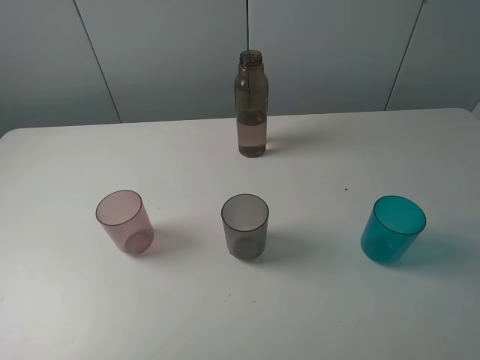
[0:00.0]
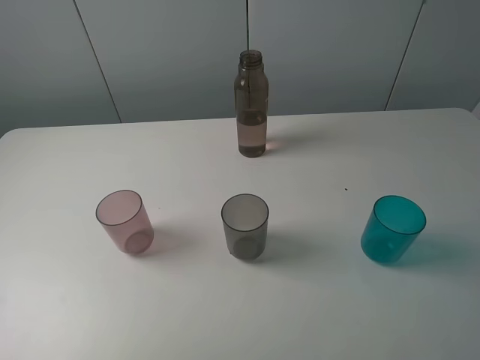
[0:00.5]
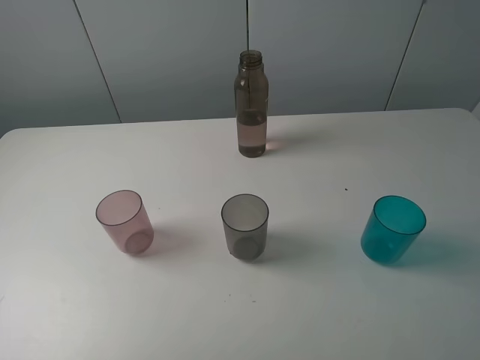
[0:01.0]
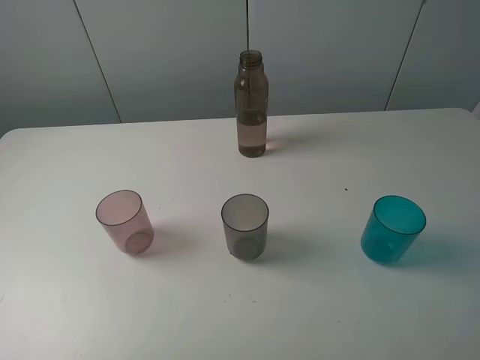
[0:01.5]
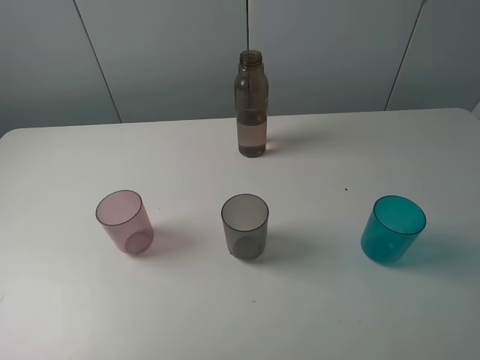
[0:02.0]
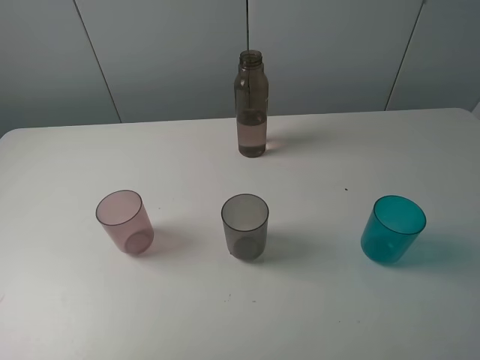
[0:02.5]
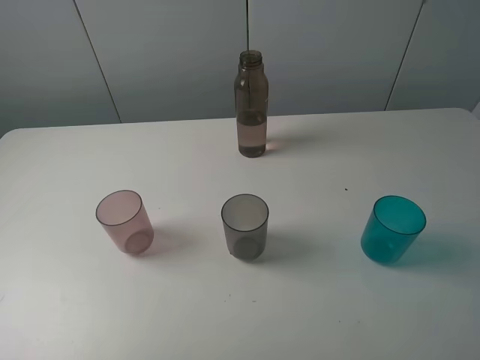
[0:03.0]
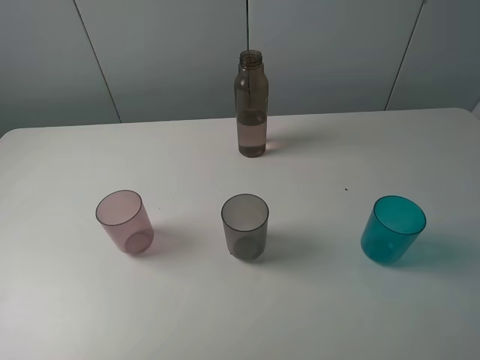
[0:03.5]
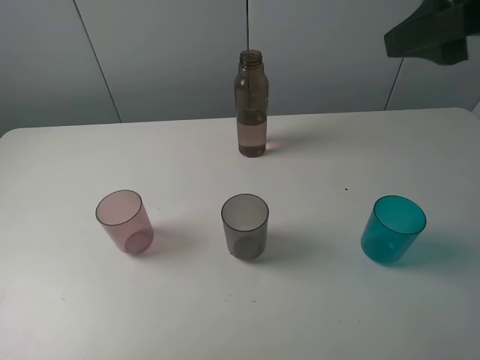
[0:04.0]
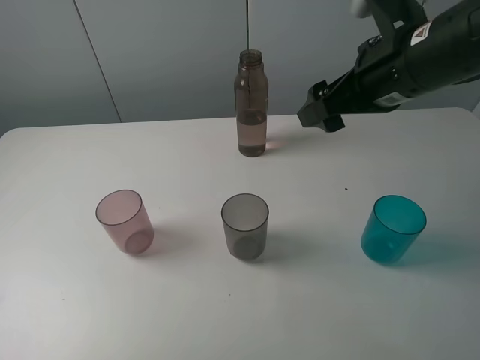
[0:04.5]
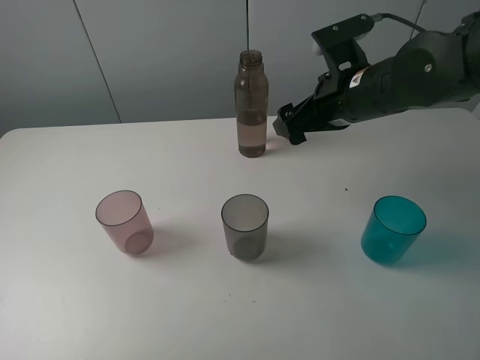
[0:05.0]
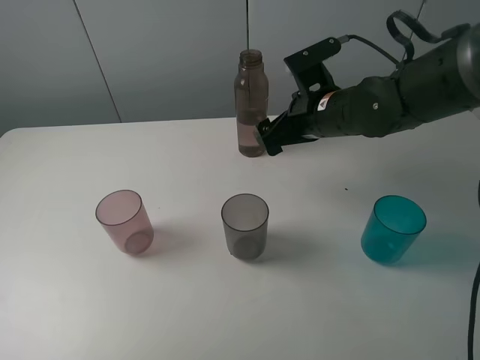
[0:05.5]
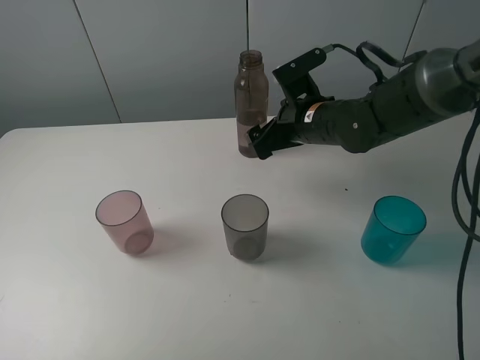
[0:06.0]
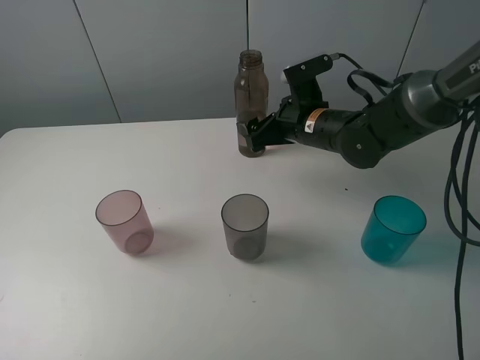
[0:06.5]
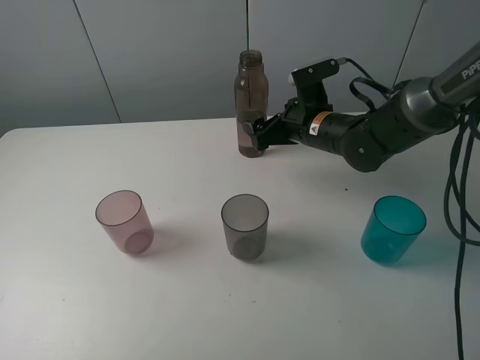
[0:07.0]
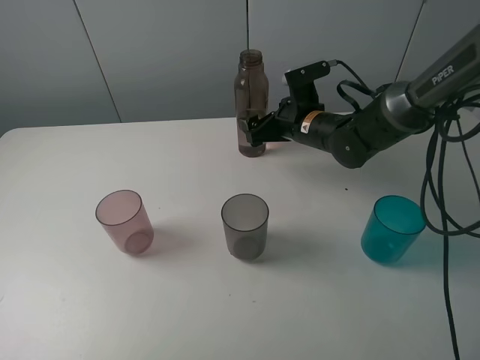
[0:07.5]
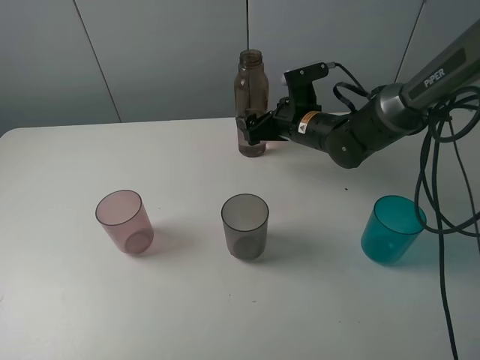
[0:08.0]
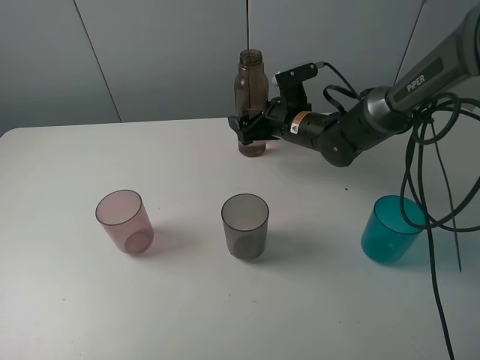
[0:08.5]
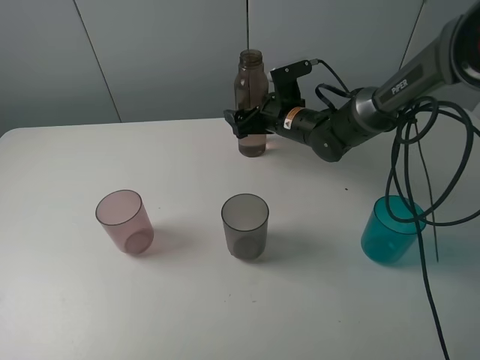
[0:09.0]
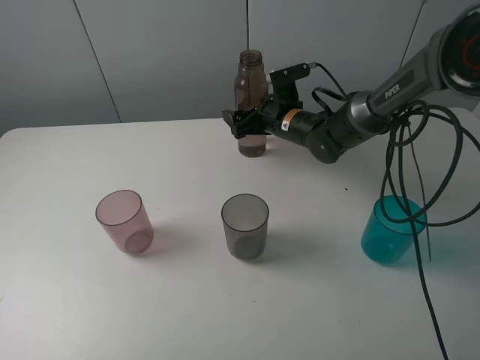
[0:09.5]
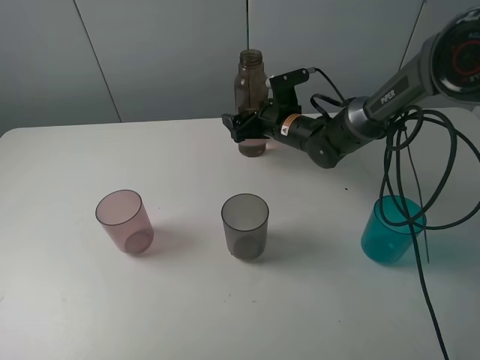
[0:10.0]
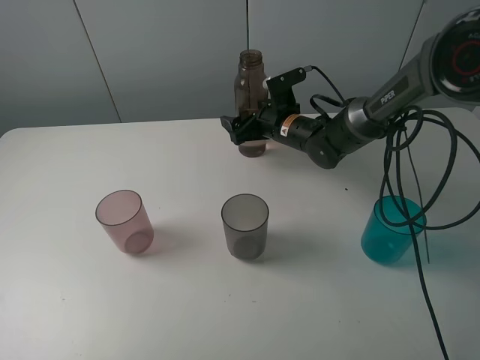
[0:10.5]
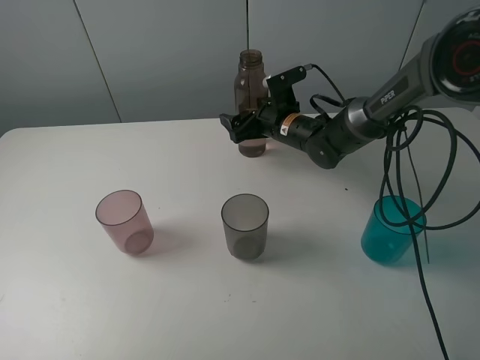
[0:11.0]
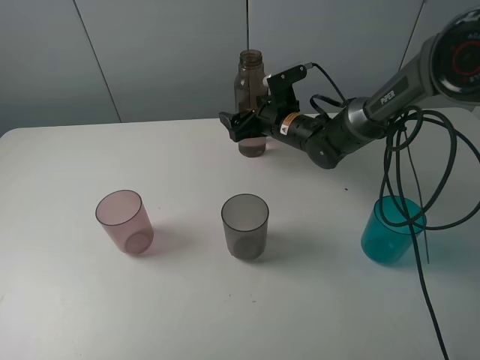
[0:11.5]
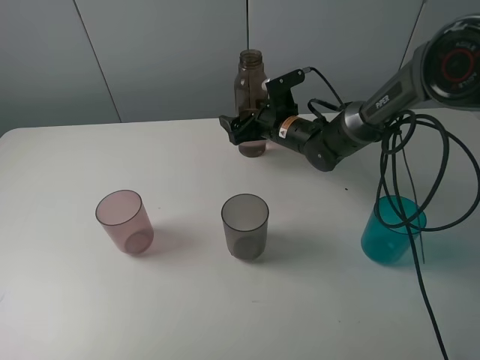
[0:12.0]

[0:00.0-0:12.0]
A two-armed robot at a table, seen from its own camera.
Task of the whole recording: pick up the bottle filled with water and pour water into the middle cup of the three cups.
0:00.0 to 0:02.0: Both grippers stay put.
0:02.0 to 0:04.0: The right gripper shifts some 20 cm forward.
0:04.0 to 0:06.0: The right gripper shifts approximately 30 cm downward, forward and to the left.
0:06.0 to 0:08.0: The right gripper ends up approximately 5 cm from where it was.
0:08.0 to 0:10.0: The right gripper changes place by about 5 cm.
0:10.0 to 0:12.0: Both grippers stay about where they are.

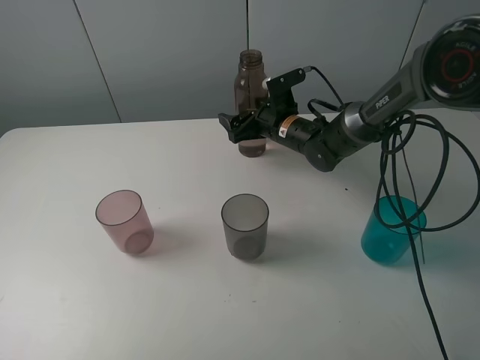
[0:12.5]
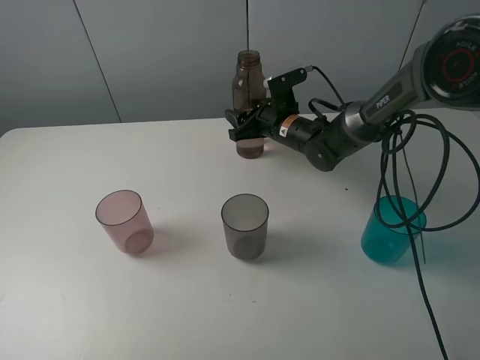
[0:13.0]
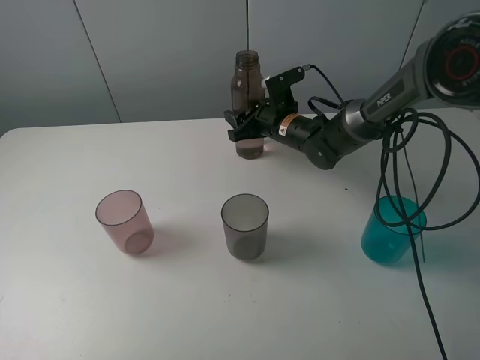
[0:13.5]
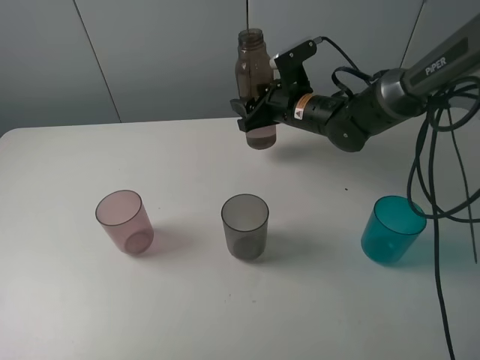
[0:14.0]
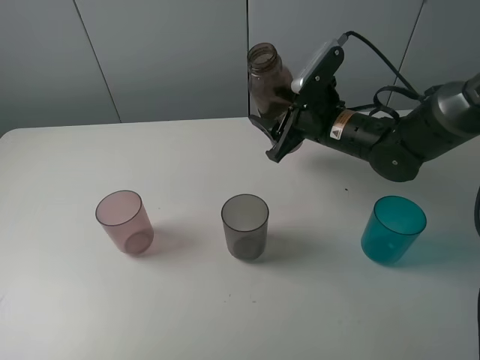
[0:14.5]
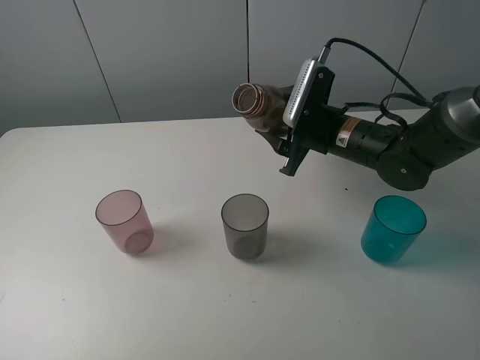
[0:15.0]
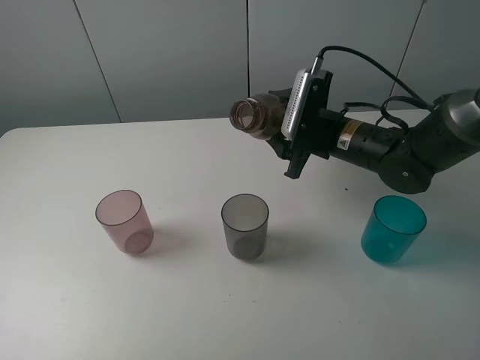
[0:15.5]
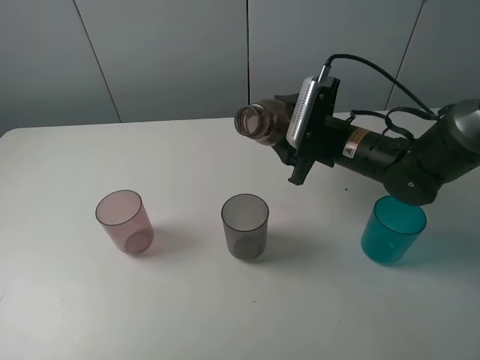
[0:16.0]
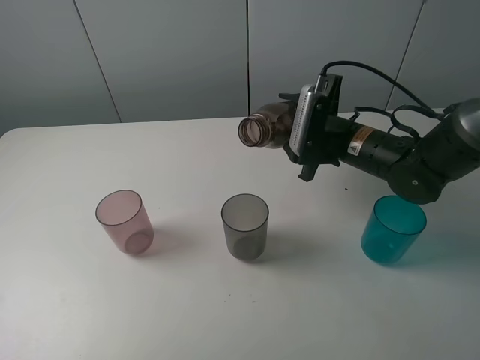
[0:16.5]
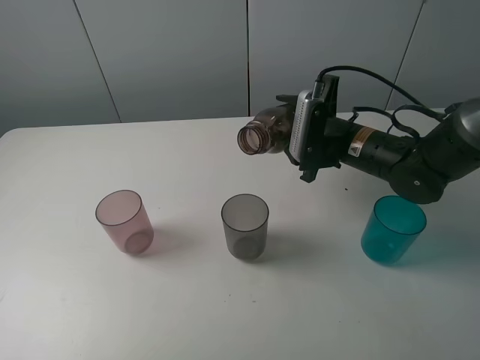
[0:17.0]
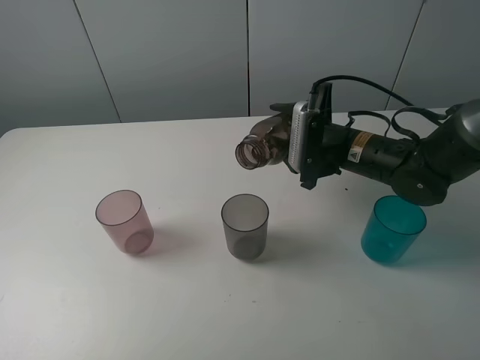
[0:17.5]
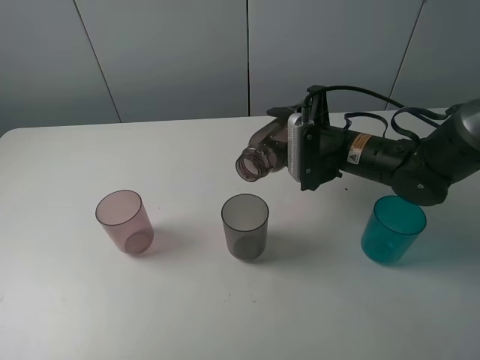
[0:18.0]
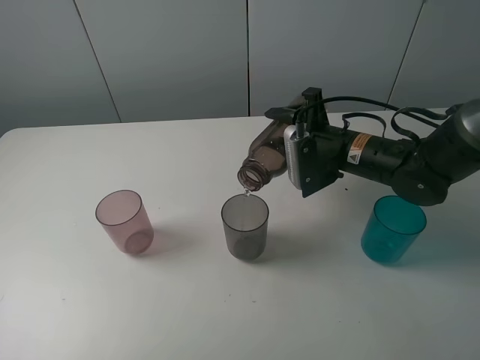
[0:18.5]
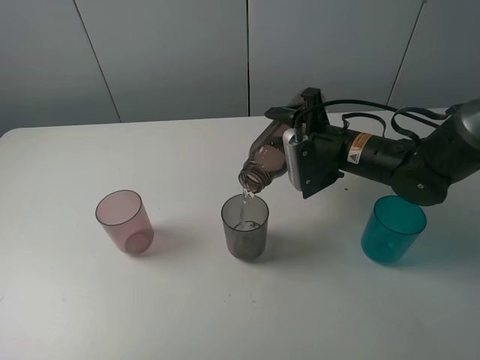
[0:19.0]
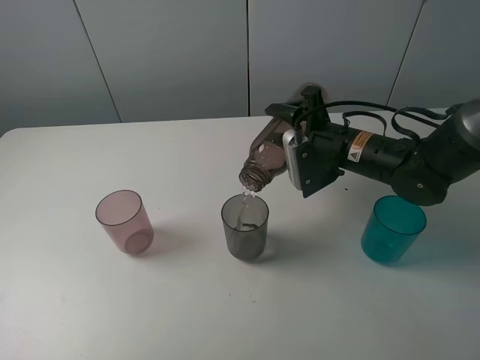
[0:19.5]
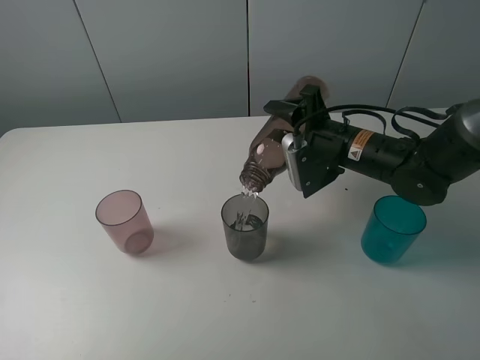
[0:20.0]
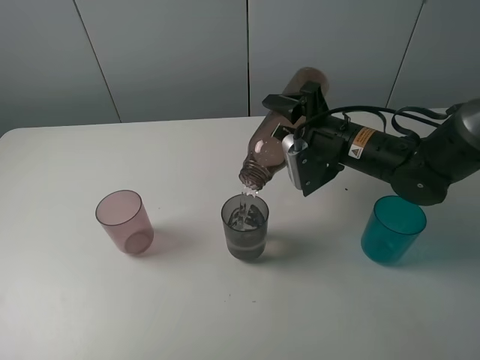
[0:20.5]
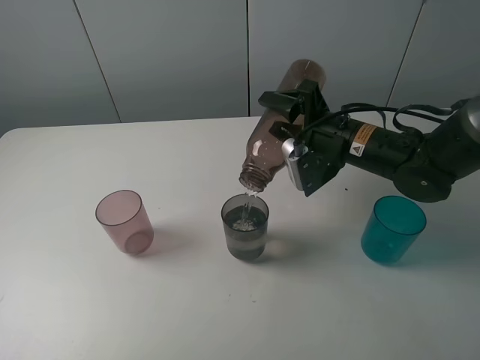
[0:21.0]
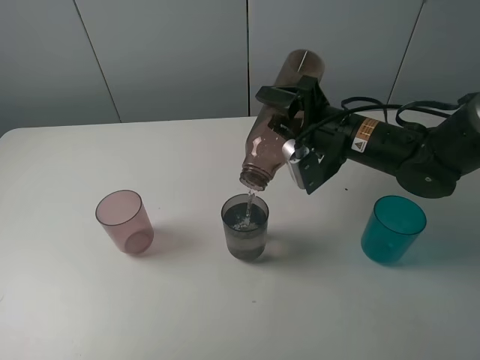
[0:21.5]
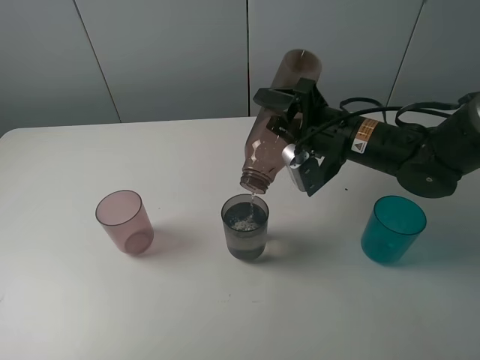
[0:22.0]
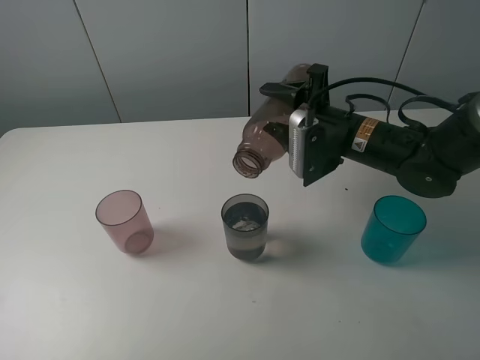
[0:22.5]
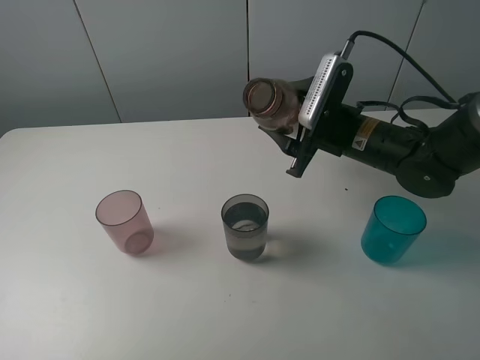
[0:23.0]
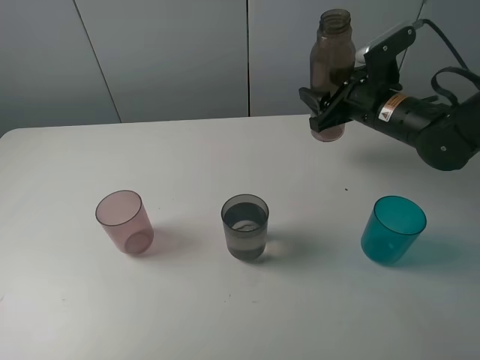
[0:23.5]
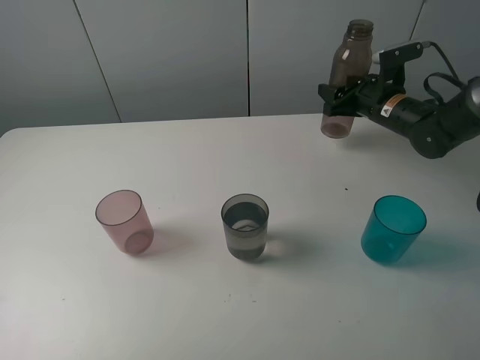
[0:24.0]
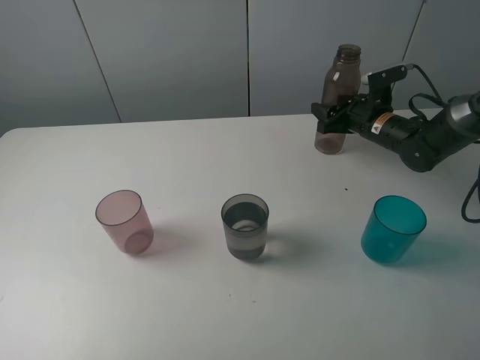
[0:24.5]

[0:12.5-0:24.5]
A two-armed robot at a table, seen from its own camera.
Task of the whole recording: pick up the bottle filled with water and pour water into the middle cup of the three cups.
Step, 0:13.5 to 0:23.5: Pour water from brown bottle to grey cup with the right gripper.
0:12.5 to 0:14.5: The right gripper is displaced backward, upward and to the right by some 10 cm, and closes.
0:18.5 to 0:20.5: The grippers make only small movements.
0:20.5 to 0:22.5: The grippers move only a little.
0:22.5 to 0:24.5: The right gripper moves forward, to the right and downward, about 15 cm.

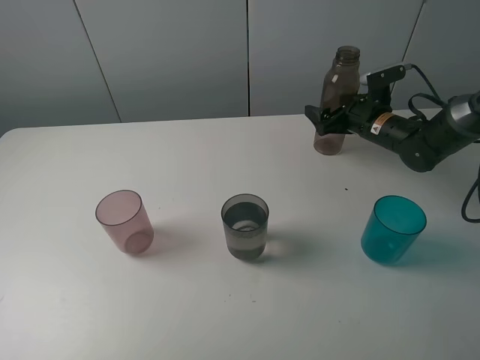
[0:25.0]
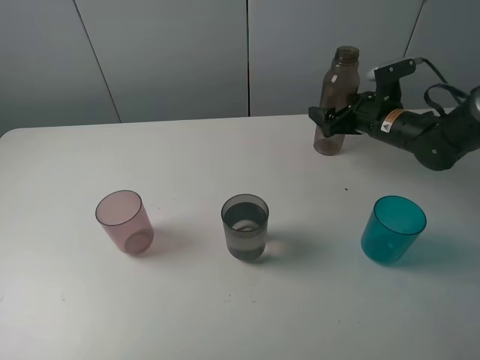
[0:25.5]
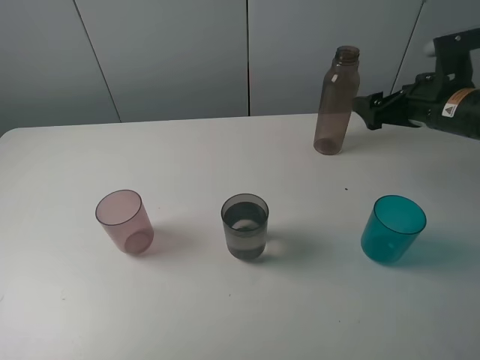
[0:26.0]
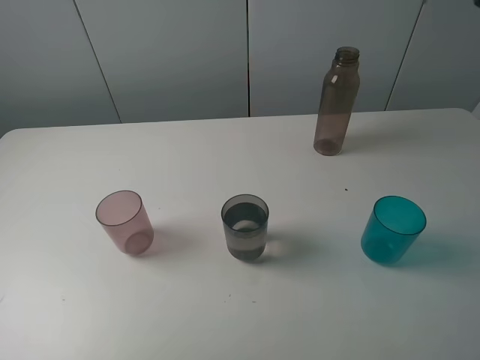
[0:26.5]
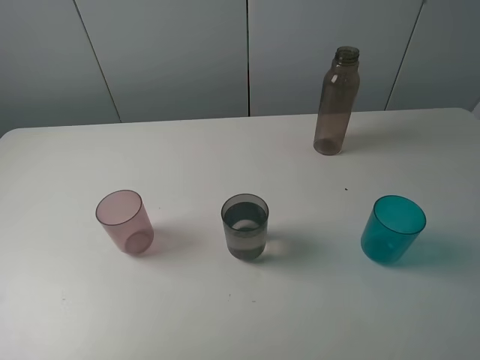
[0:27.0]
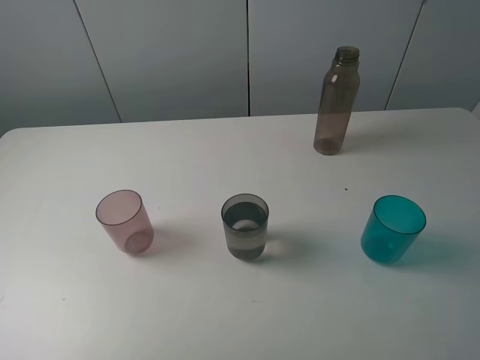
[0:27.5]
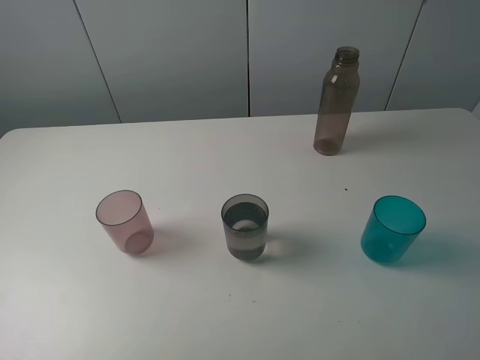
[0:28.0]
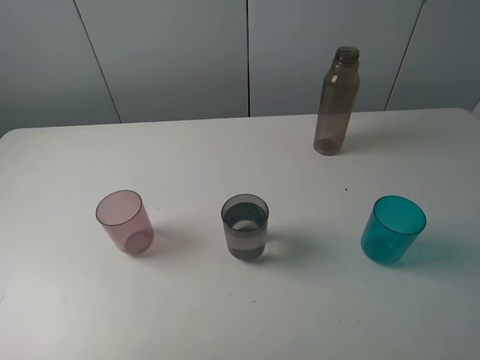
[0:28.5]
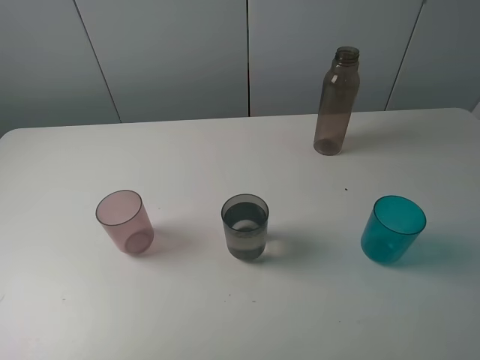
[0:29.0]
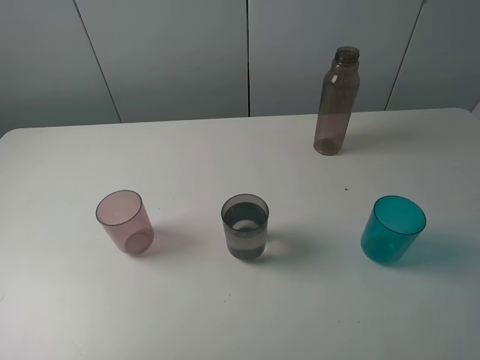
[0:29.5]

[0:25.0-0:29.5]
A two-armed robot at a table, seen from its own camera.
Task of the whole recording: pick up the bottle filled with water and pour water into the middle cup of the three cups.
Step, 0:25.0 to 0:28.0: Place the brown bottle with the right gripper.
0:25.0 to 0:27.0: The right gripper moves backward and upward, about 50 cm.
